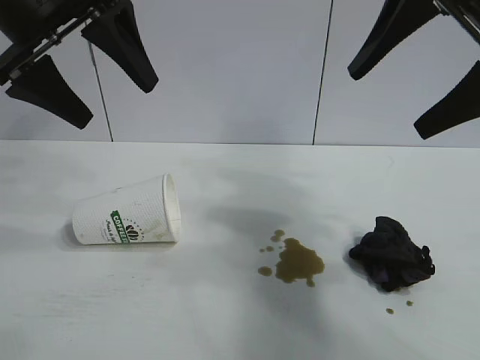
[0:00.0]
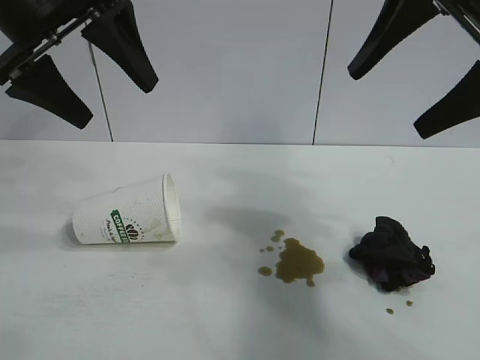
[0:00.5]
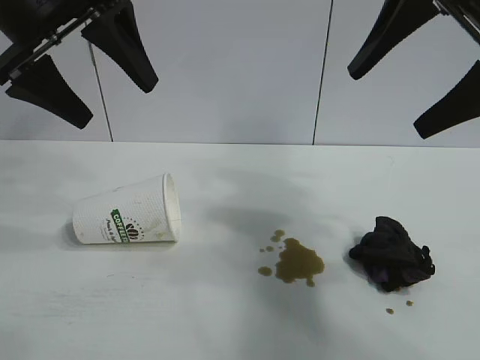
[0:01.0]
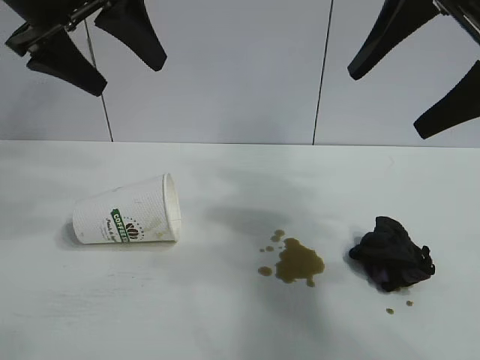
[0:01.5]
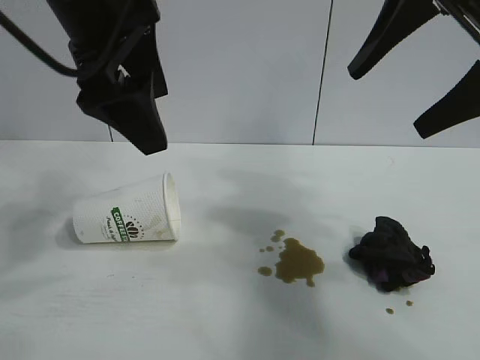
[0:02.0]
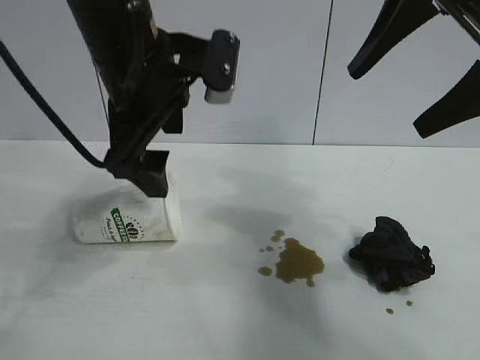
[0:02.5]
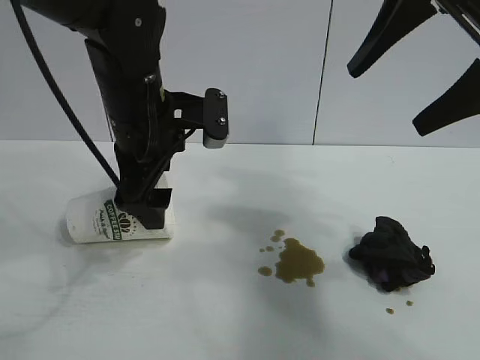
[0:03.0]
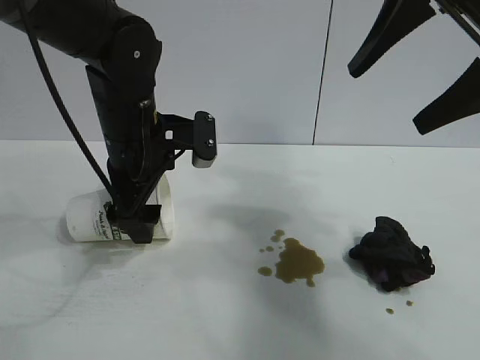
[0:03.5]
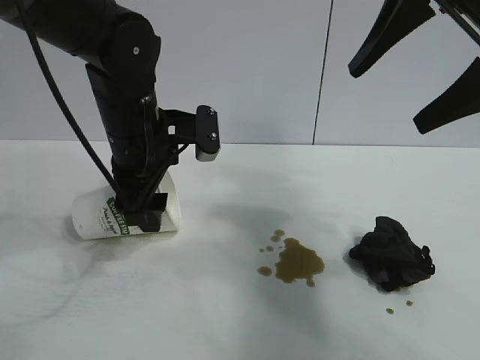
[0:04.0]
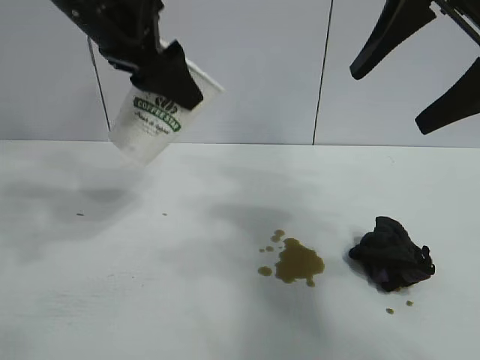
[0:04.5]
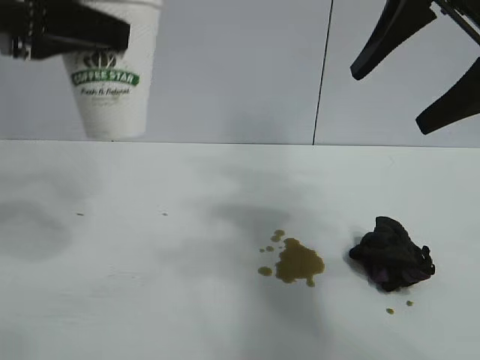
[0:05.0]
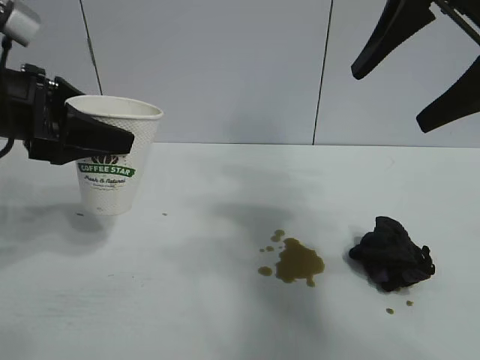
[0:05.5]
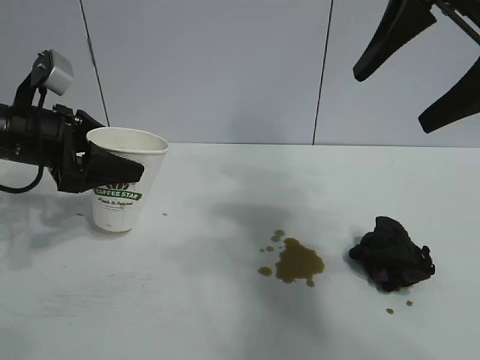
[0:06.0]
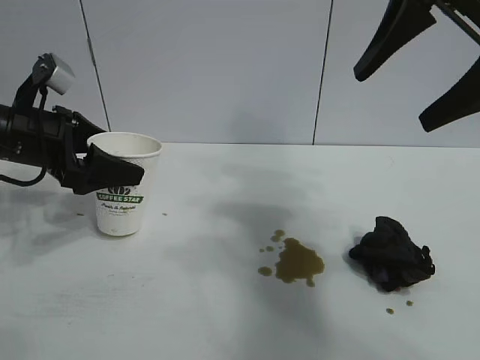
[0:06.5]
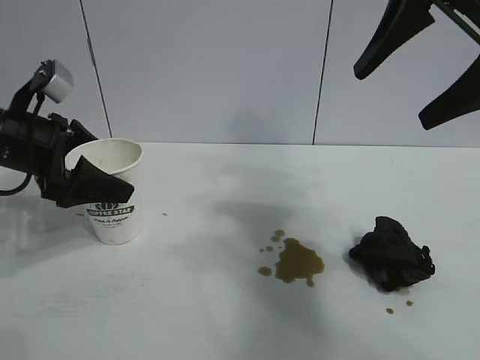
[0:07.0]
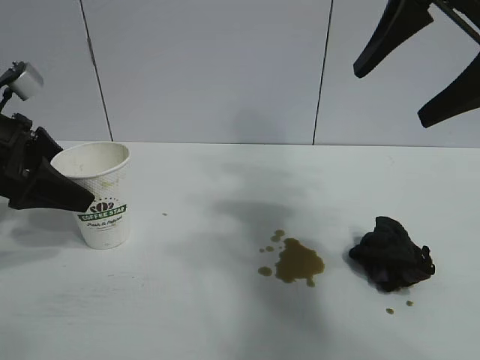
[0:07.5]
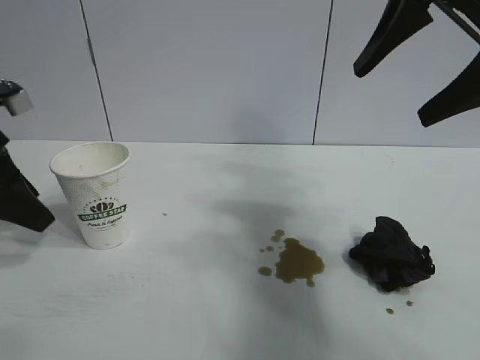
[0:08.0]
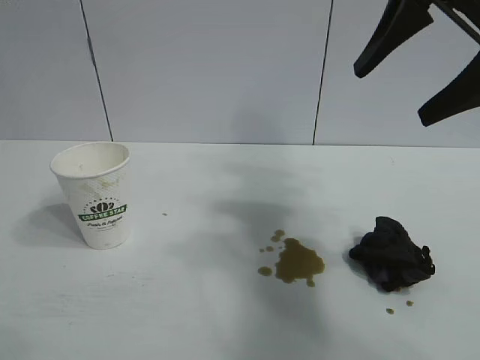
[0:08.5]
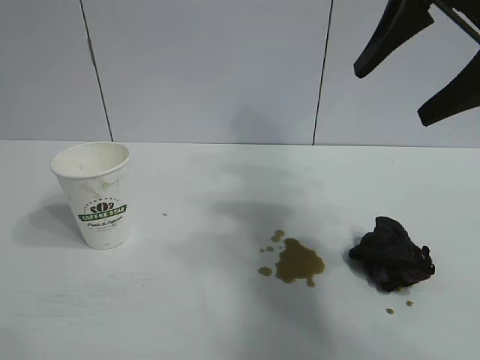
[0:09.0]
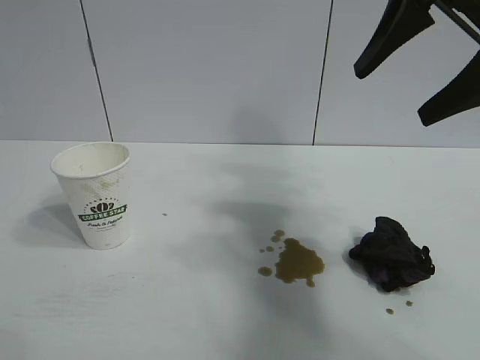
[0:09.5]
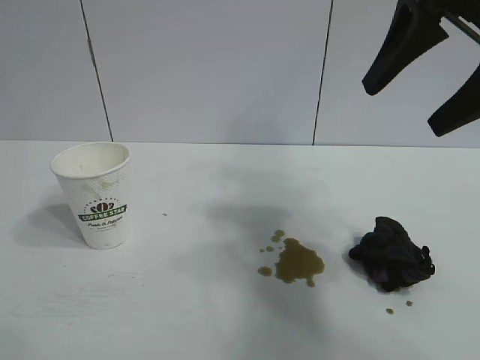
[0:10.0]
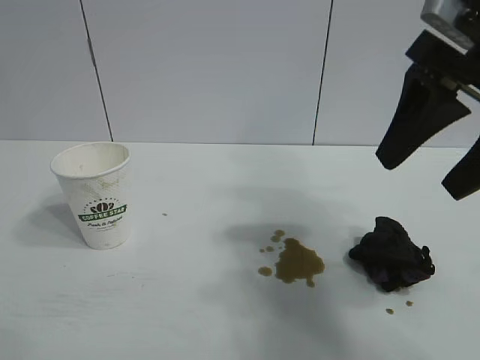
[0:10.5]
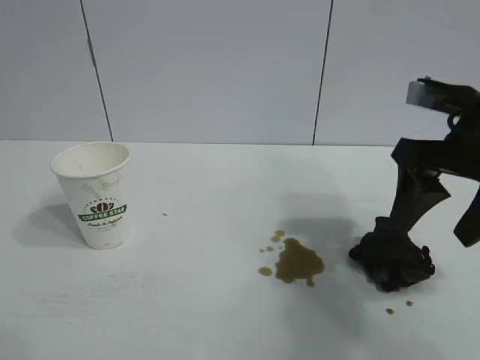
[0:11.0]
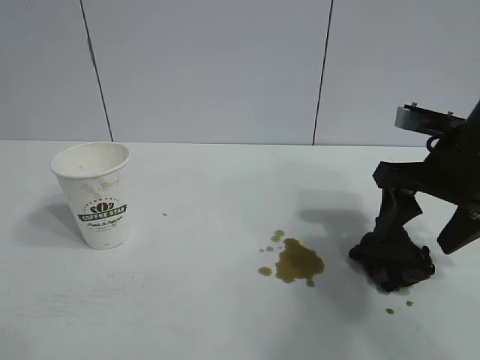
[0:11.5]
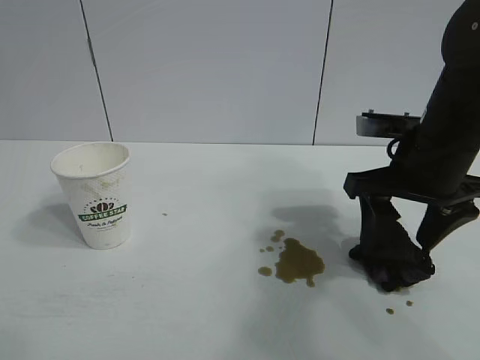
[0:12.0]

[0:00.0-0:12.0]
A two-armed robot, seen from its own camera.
Task of the whole recording: the left gripper pick up the fallen cup and place it upright, the right gripper grasp the black rag and wipe the stain on the table, the right gripper put the black rag back in its original position.
Step, 0:01.5 to 0:03.5: Grasp the paper cup with left gripper.
Step, 0:04.0 to 0:07.0: Stand the paper cup upright with left gripper.

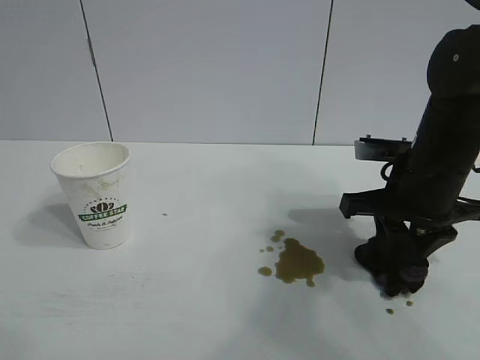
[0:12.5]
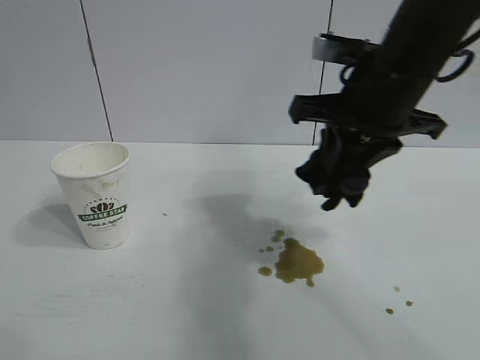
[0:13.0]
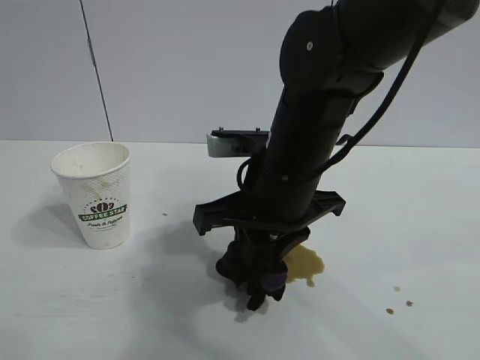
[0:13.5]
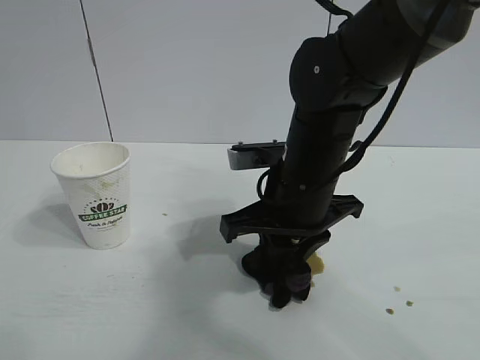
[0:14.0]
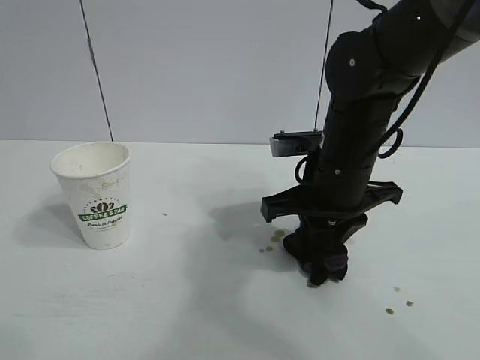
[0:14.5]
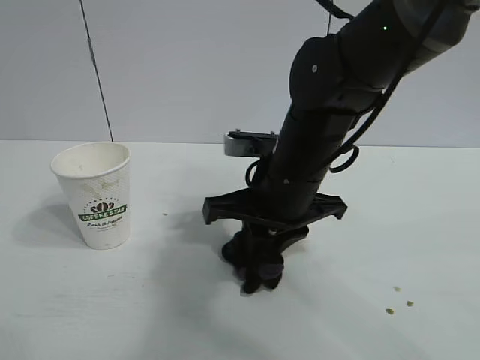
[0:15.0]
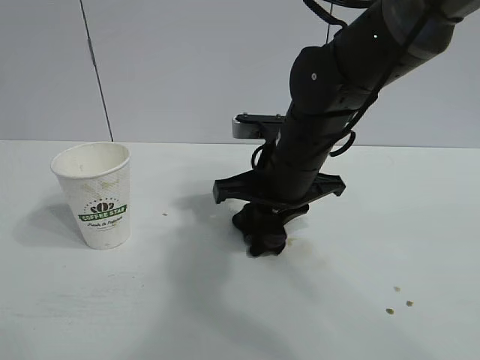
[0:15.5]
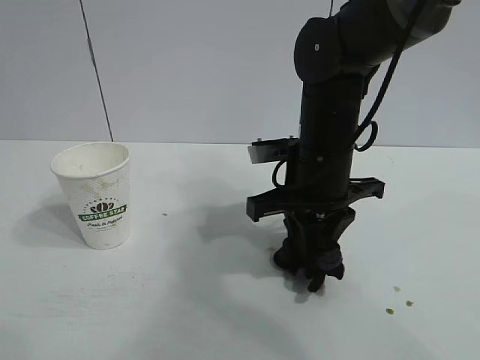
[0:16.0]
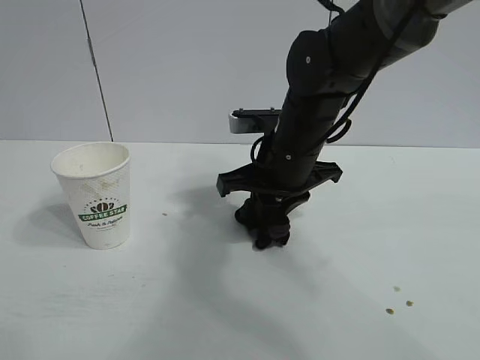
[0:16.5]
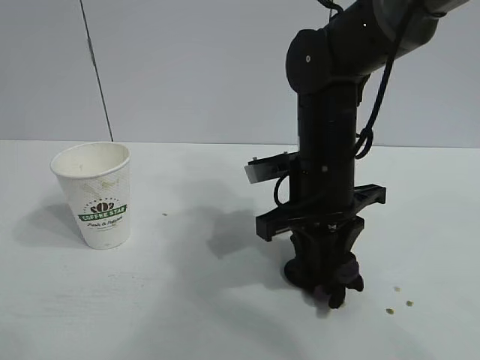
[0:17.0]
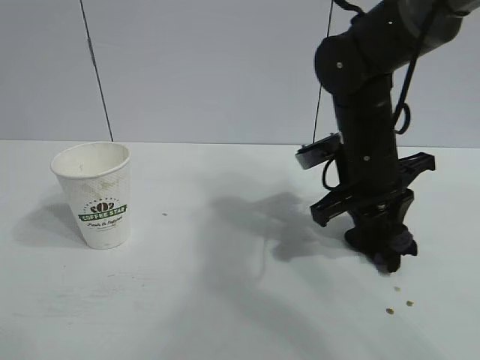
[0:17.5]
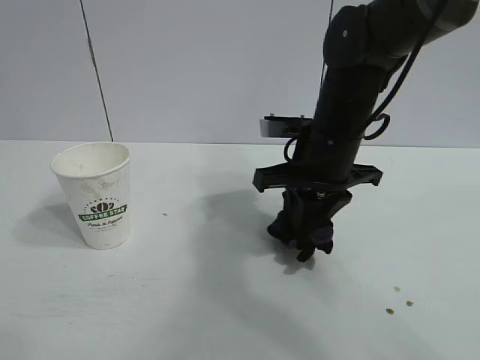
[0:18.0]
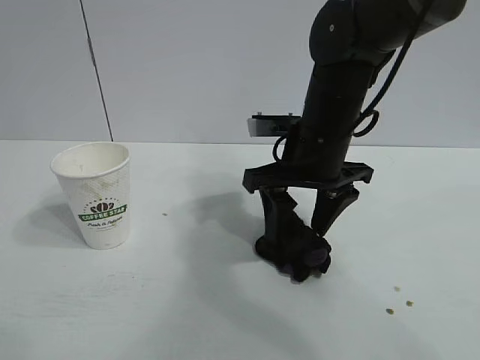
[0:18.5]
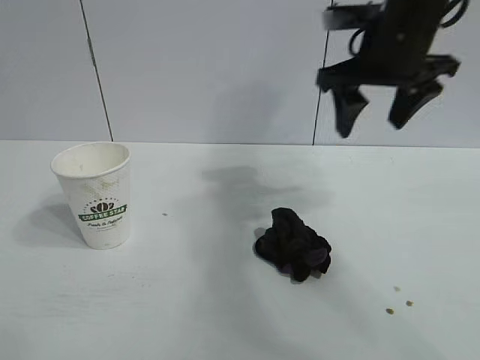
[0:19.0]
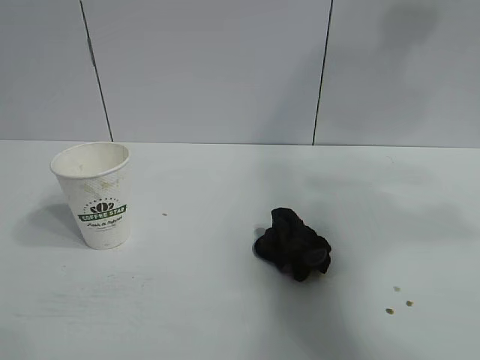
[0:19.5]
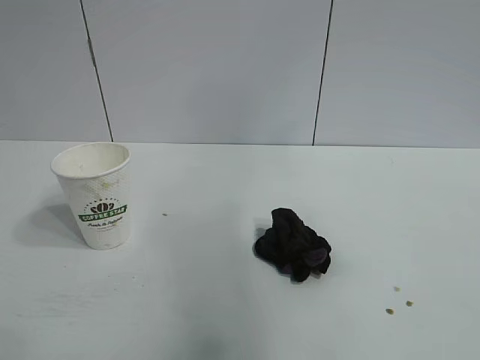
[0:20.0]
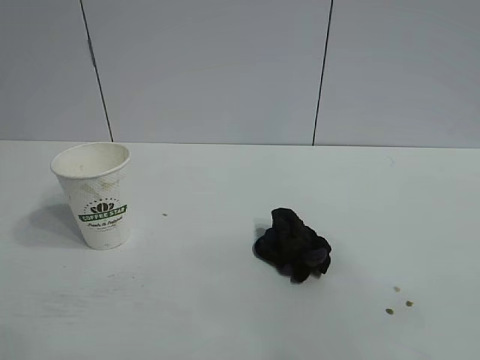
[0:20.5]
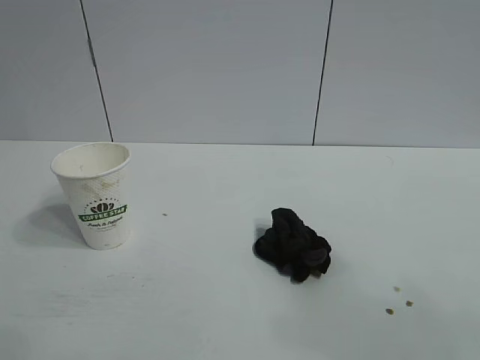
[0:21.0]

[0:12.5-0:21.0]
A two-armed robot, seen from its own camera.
Task of the whole recording: the left gripper pick up the fallen cup and place it upright, the right gripper grasp the black rag and wipe the stain on the table, the right gripper put the black rag back in its original position.
Step, 0:13.0 to 0:17.5: Wipe the stains off the table with the rag with right gripper.
Step, 0:18.0 to 0:18.5: Place the rag on the table with right gripper.
